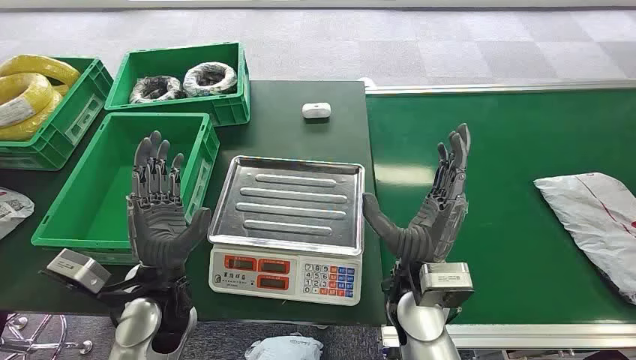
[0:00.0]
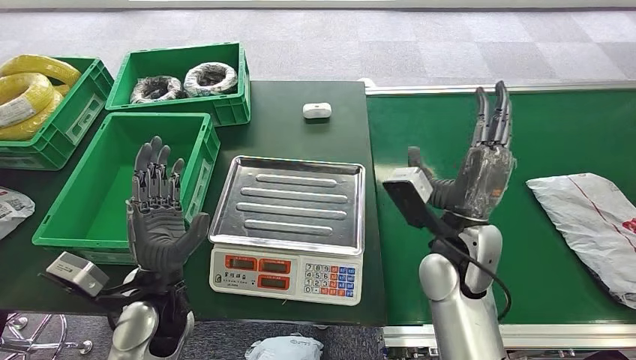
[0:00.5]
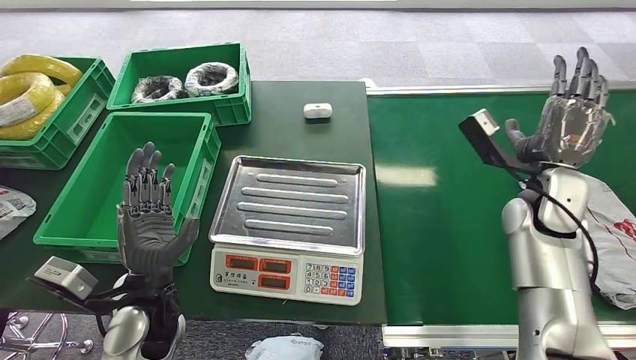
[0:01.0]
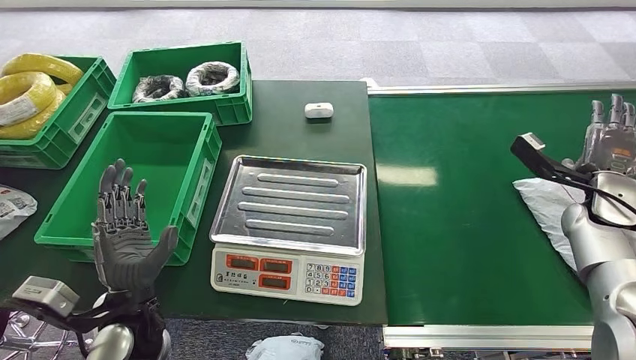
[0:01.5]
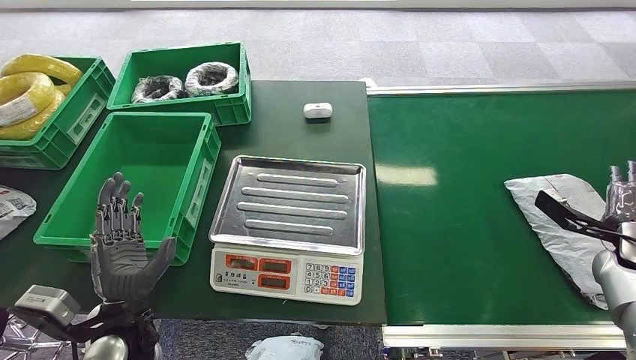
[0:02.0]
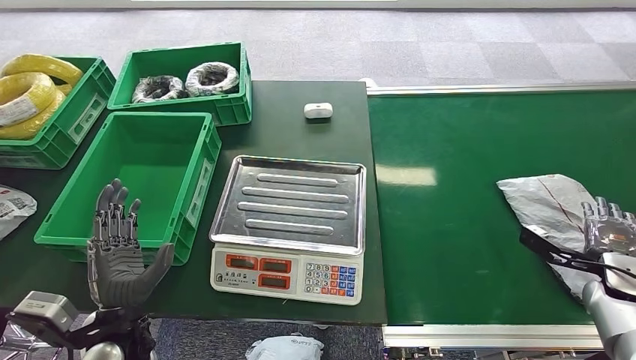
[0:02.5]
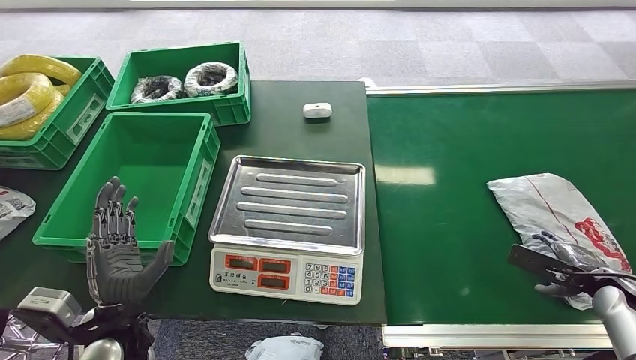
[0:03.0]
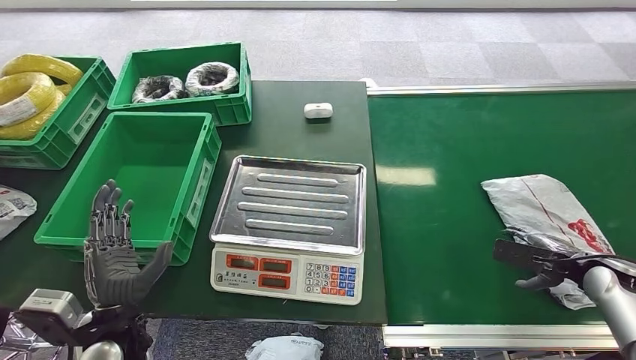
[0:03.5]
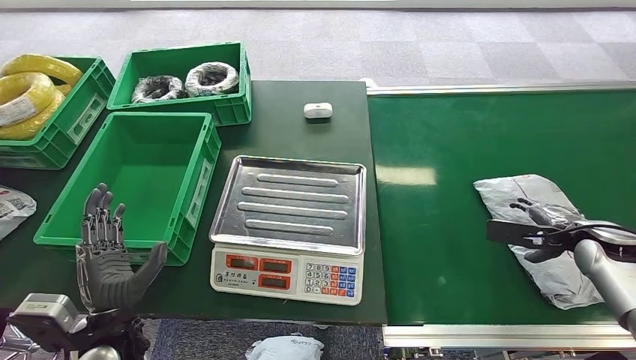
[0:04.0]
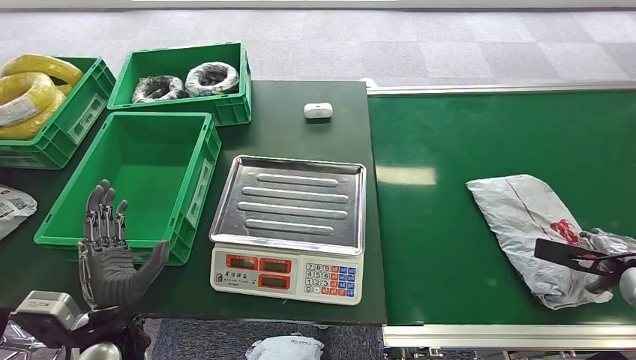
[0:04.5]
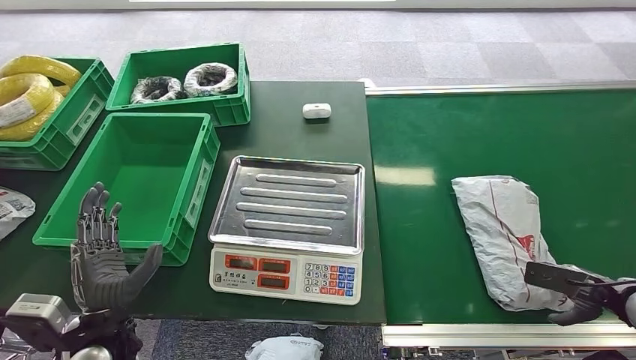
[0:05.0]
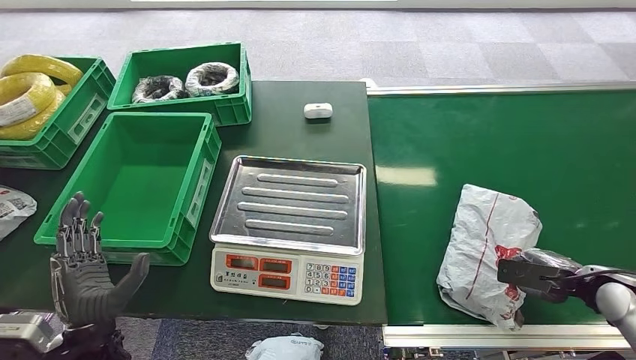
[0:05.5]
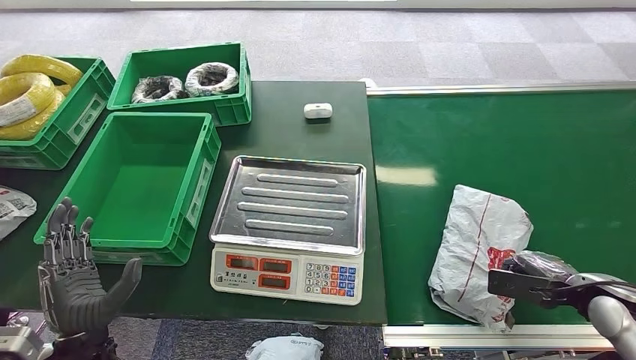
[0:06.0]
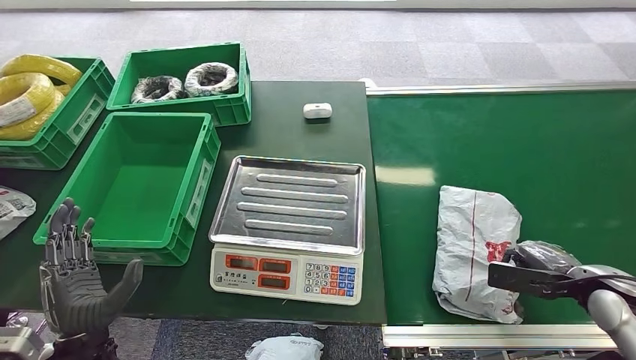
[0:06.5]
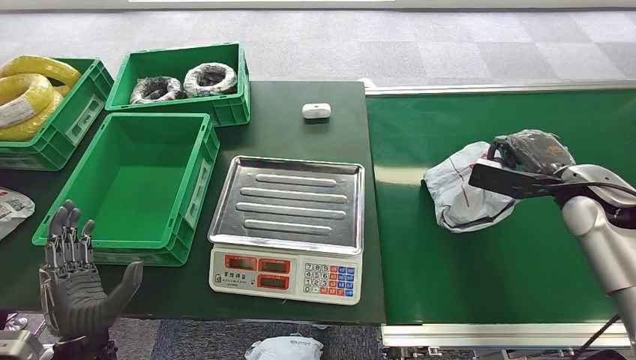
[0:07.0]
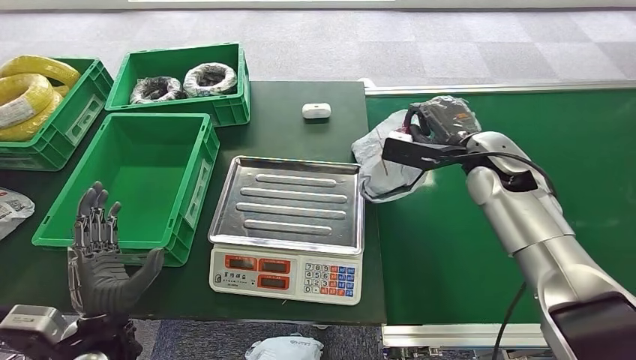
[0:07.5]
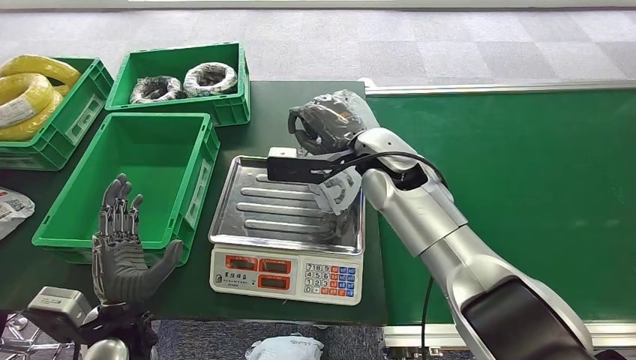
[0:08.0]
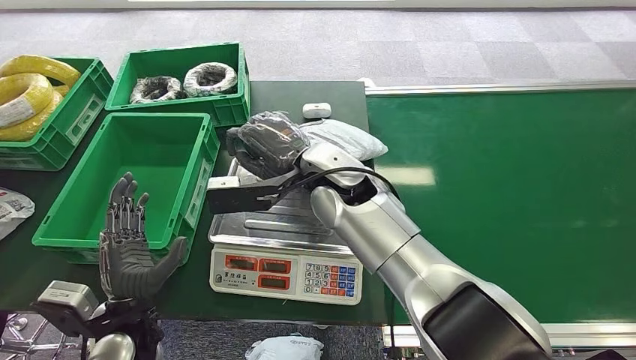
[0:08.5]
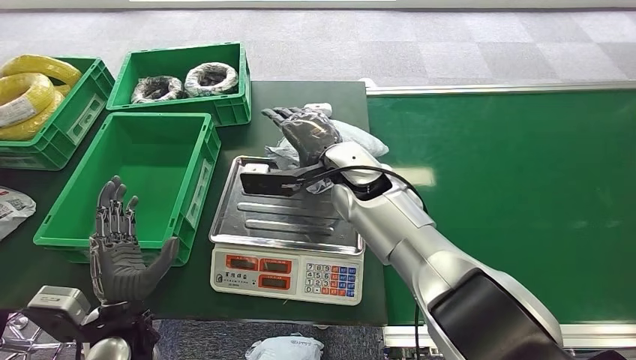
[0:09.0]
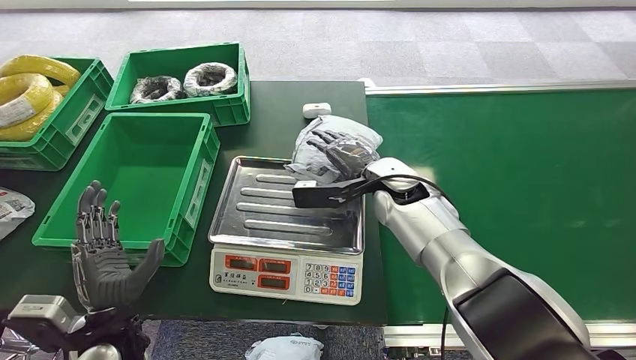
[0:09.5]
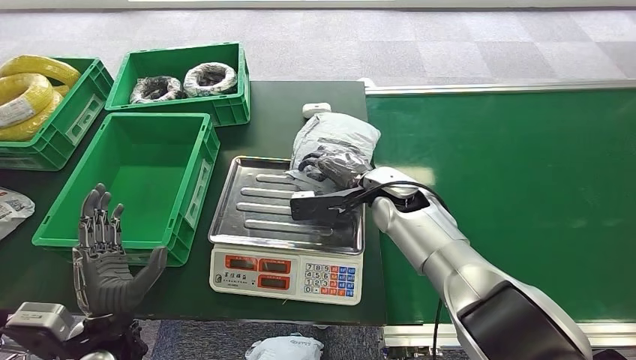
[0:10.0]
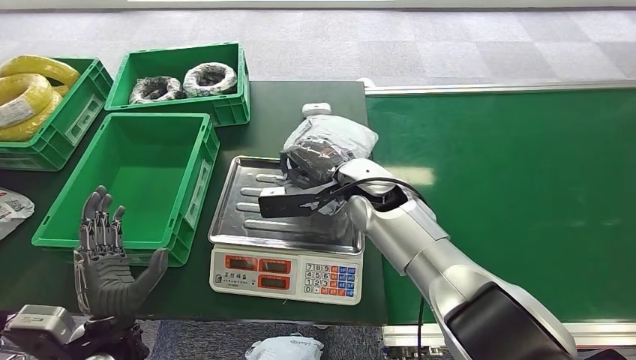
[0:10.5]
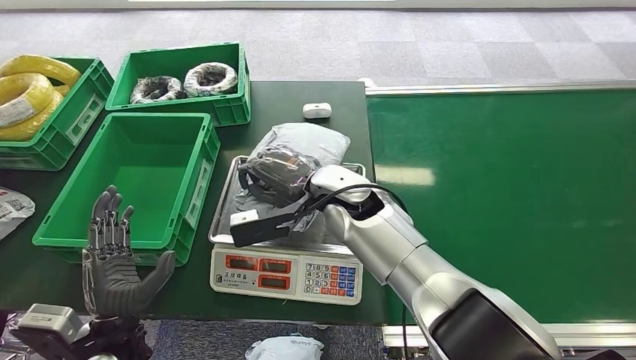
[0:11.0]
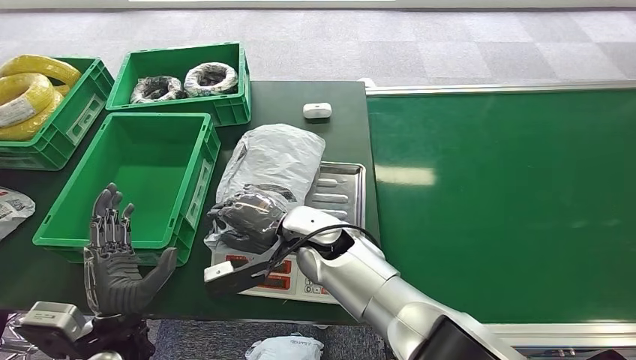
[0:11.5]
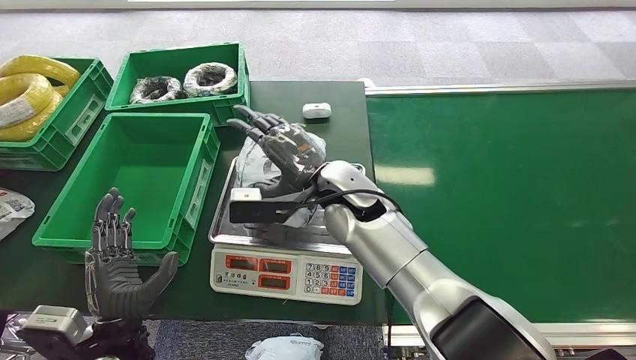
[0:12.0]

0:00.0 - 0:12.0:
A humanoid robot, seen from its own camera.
Step, 0:00.0 - 0:07.0: Pick up the package from the conveyor belt.
0:04.0 - 0:06.0: The right hand travels backward by some 10 cm, and moves roughly 5 cm to the right and comes back.
0:08.0 - 0:10.0: The right hand shifts some 10 cm downward, and goes to the left and returns, approximately 10 cm each way.
0:10.0 - 0:12.0: The right hand is displaced to the left by some 10 cm.

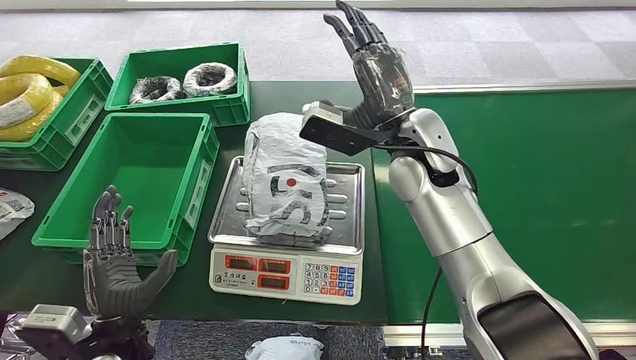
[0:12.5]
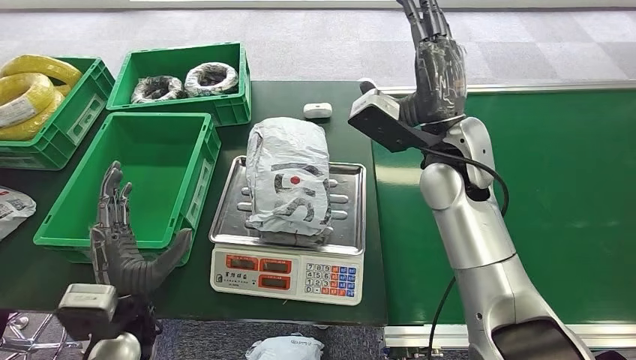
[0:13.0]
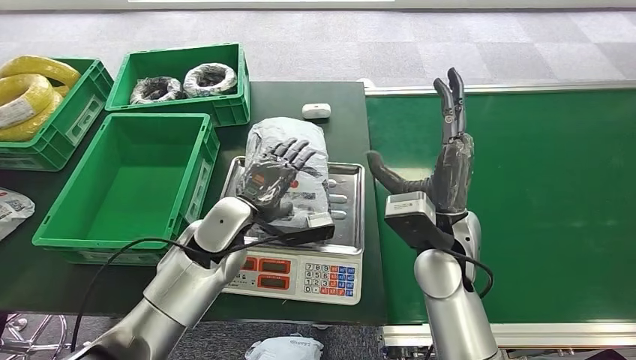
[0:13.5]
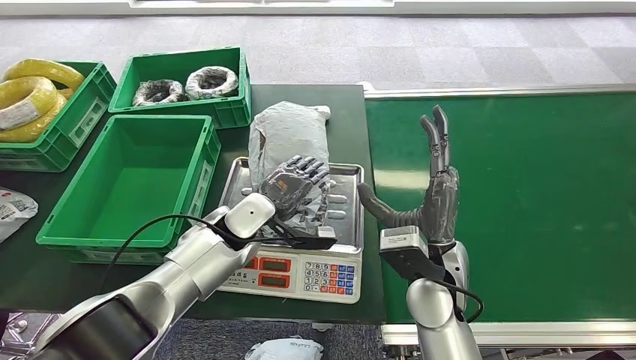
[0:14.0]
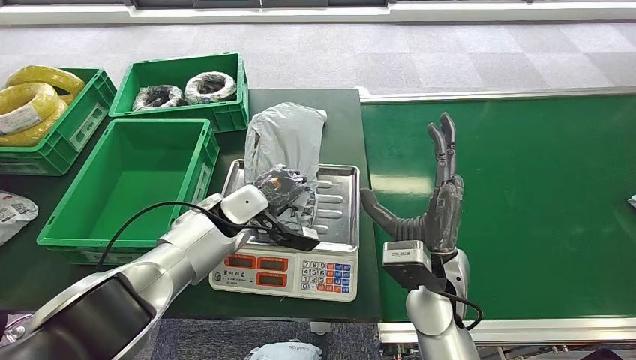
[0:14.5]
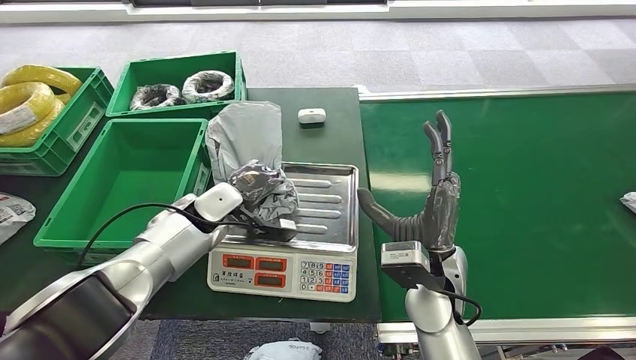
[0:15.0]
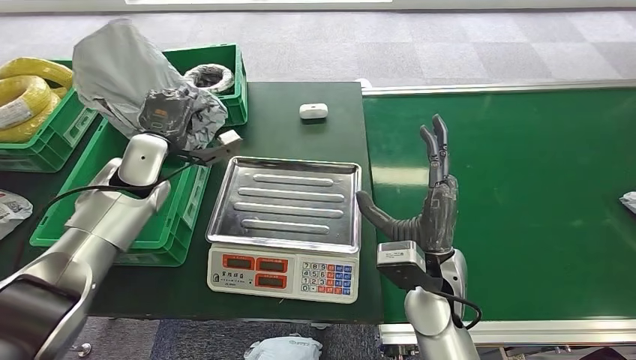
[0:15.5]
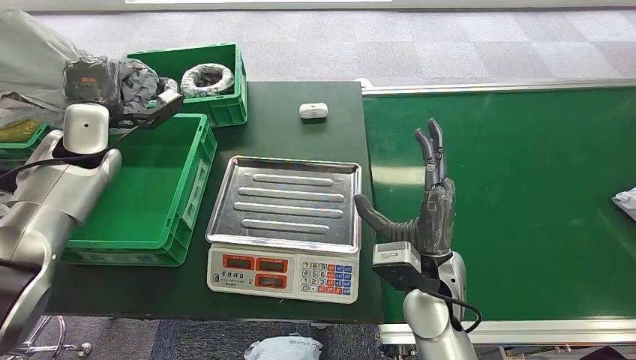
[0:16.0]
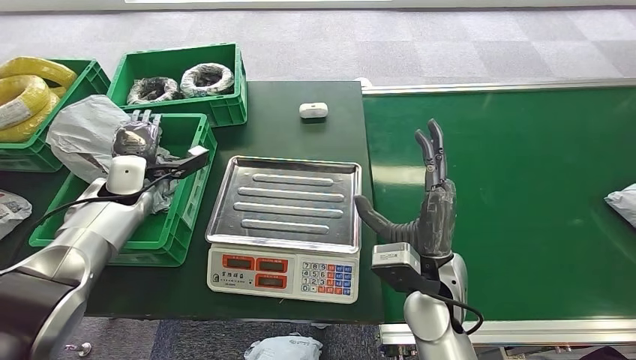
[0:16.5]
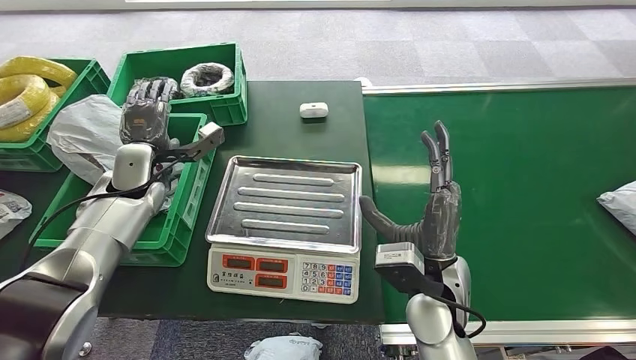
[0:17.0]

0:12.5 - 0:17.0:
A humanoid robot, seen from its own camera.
Step, 0:12.5 - 0:15.5: Pick up the package from the inbound machine.
Step, 0:16.0 - 0:17.0: Place the package into the parcel locker.
